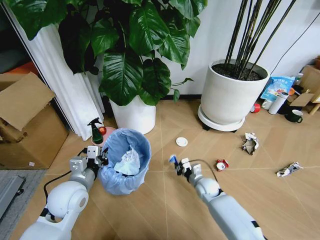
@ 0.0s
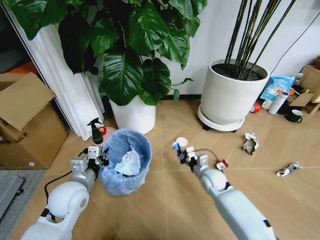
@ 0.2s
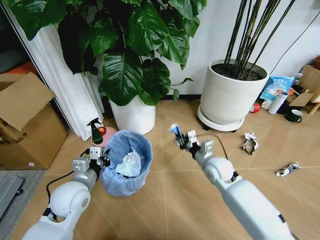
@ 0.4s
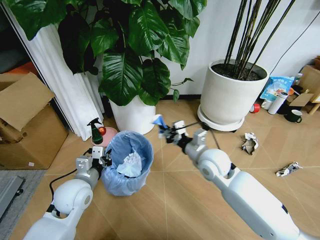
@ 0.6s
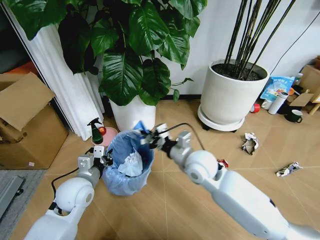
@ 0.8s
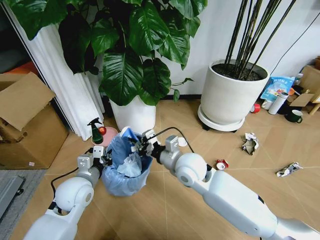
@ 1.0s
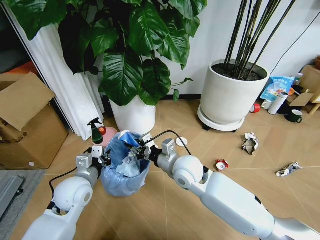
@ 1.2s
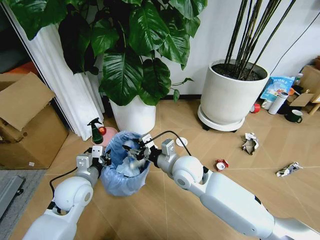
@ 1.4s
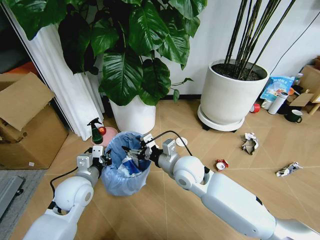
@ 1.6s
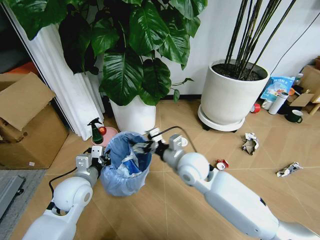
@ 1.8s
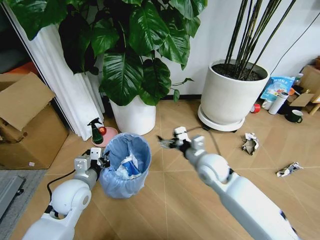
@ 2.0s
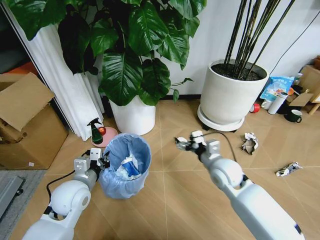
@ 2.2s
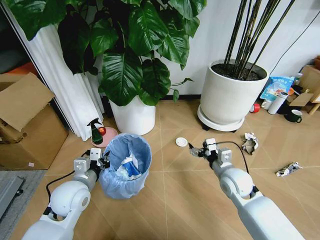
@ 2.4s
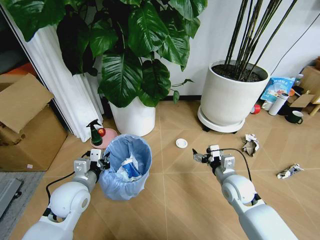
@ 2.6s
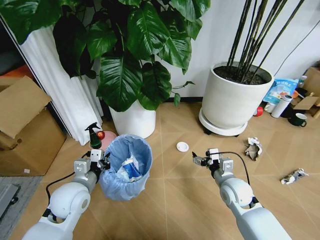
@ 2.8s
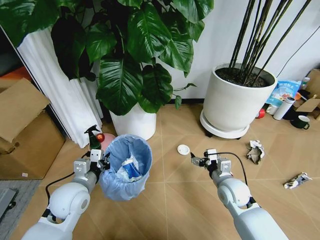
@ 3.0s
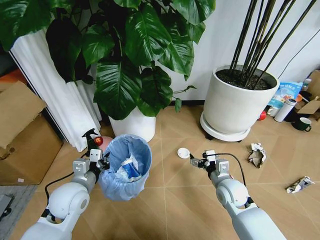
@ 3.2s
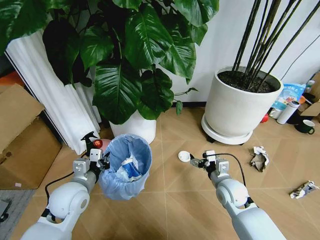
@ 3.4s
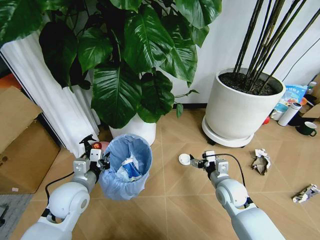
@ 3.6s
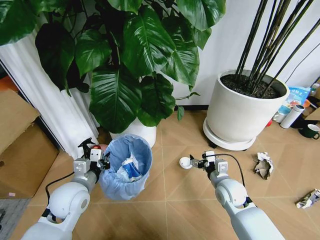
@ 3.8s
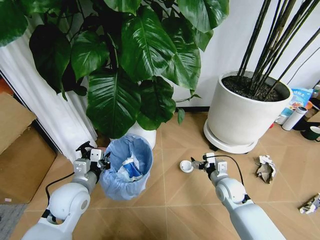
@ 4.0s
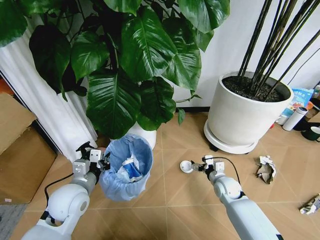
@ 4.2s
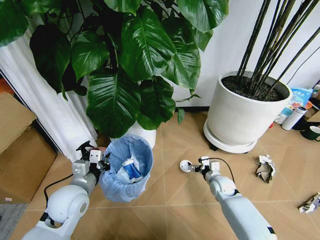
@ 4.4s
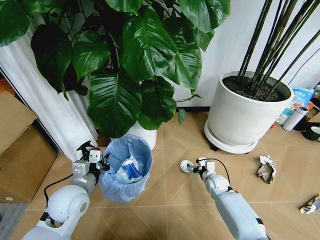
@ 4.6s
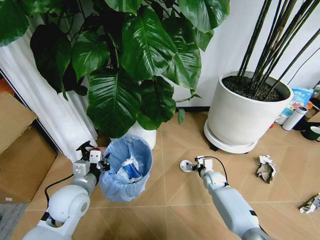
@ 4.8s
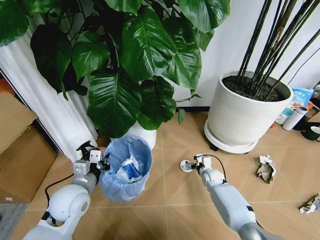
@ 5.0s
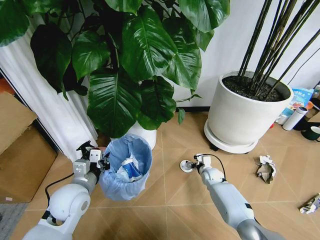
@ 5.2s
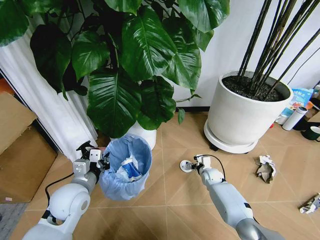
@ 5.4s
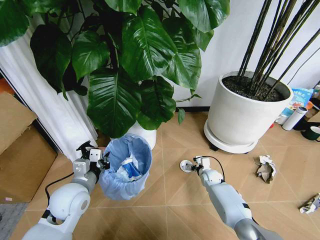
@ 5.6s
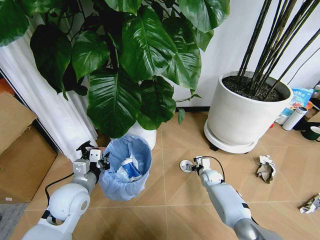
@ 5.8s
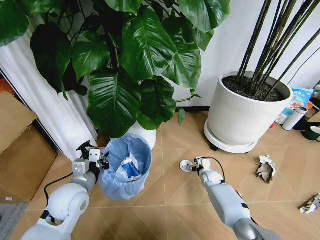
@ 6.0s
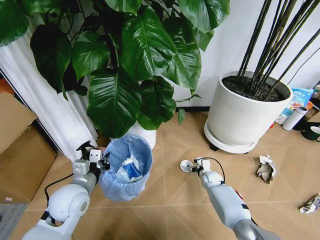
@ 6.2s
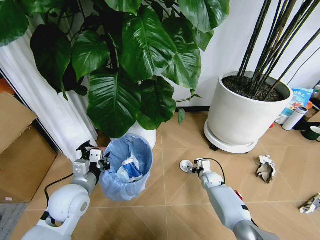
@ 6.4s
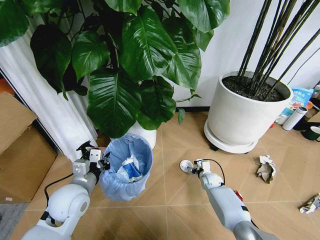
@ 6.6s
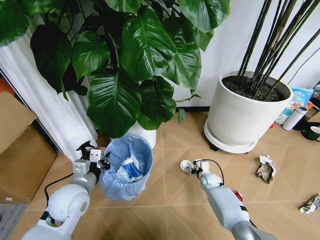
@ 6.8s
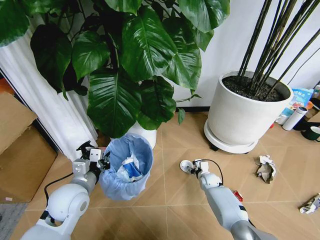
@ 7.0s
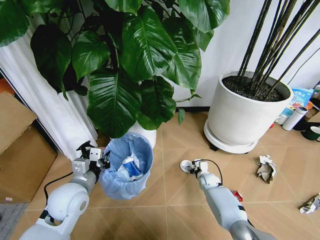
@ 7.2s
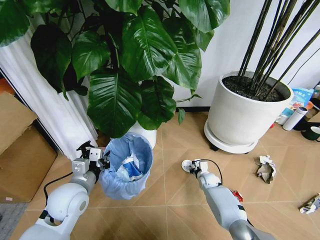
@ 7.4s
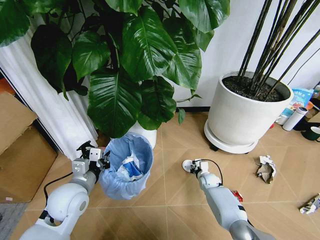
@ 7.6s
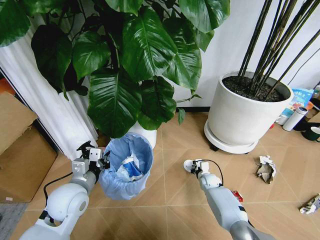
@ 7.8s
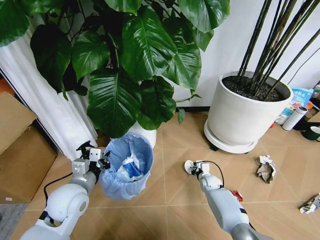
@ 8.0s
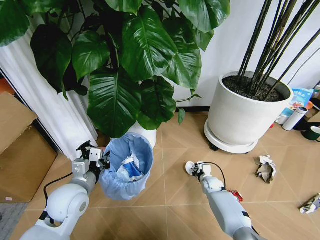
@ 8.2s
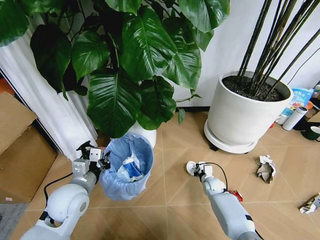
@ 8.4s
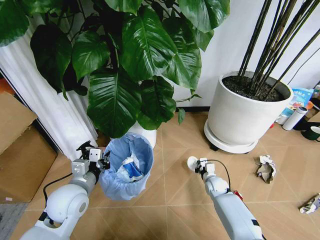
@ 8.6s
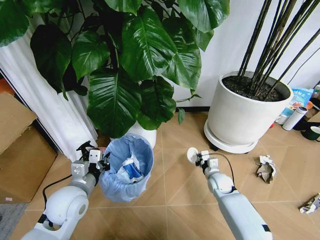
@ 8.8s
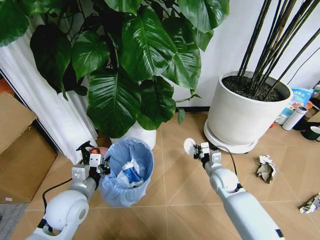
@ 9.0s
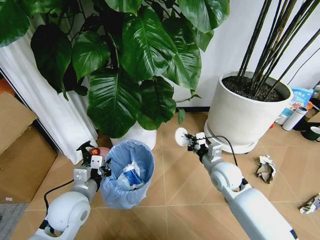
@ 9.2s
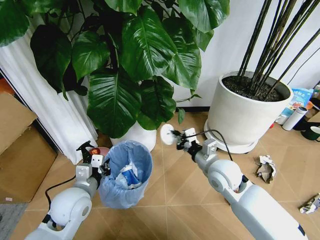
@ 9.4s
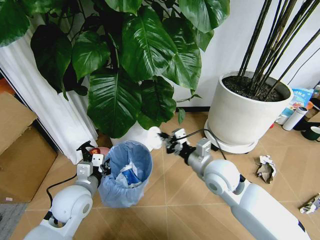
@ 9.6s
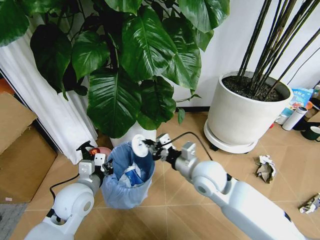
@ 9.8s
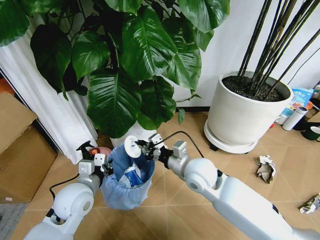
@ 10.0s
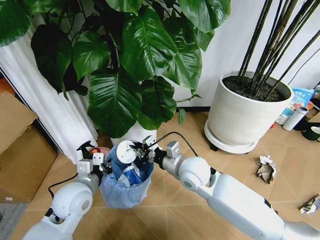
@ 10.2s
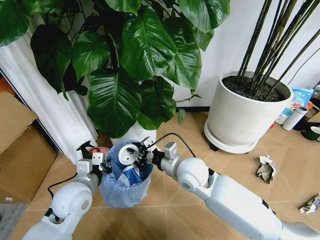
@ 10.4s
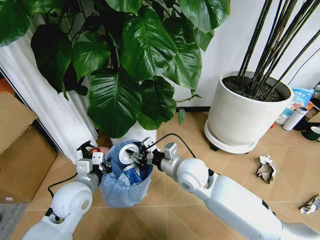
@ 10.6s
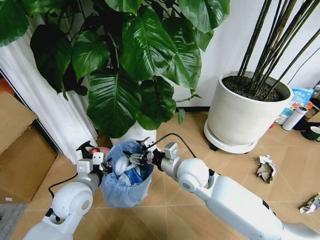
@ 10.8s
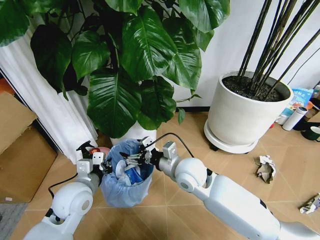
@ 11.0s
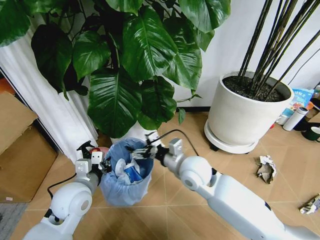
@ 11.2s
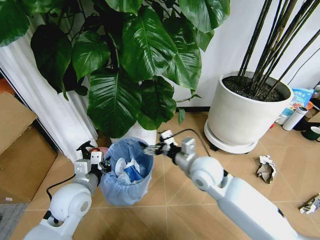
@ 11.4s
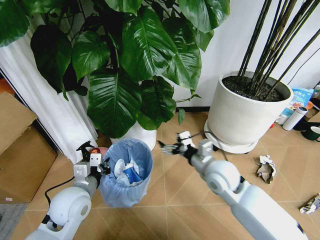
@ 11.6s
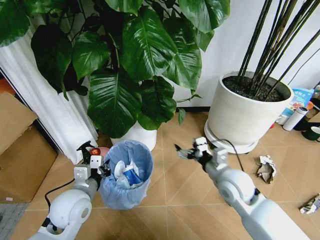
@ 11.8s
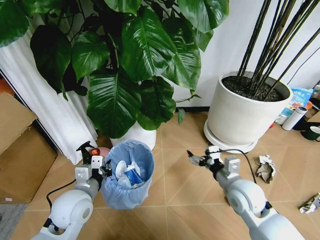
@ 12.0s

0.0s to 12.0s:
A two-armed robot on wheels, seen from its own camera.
Task of the whole recording: Pick up the trash bin and place the garbage on the floor into it.
0.0s to 1.6s: The right gripper travels upward and to the left by roughly 25 cm, and opens its fingers.
1.6s to 3.0s: The right gripper goes approximately 20 cm to the right and downward.
3.0s to 4.4s: The right gripper heads downward and forward, covering about 15 cm.
4.4s to 6.0s: The right gripper shifts about 10 cm downward and forward.
6.0s to 7.6s: The right gripper closes its fingers.
7.6s to 9.0s: The right gripper is displaced upward by some 15 cm.
9.0s to 10.4s: The right gripper travels to the left and upward by some 20 cm.
10.4s to 12.0s: The right gripper moves to the right, about 15 cm, and opens its fingers.

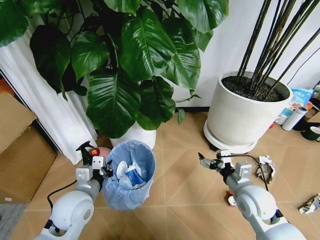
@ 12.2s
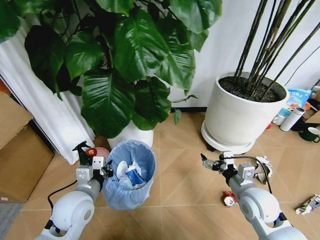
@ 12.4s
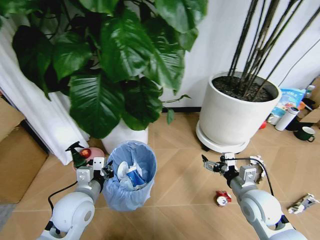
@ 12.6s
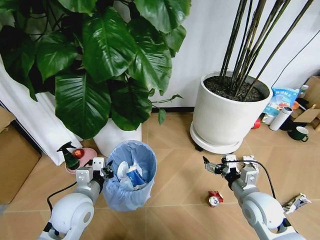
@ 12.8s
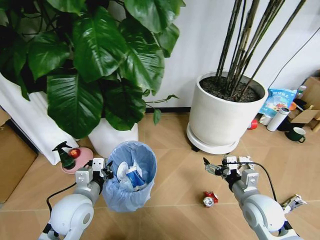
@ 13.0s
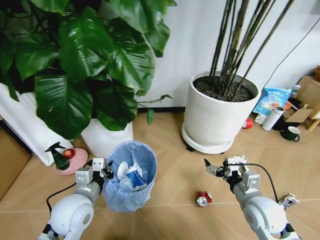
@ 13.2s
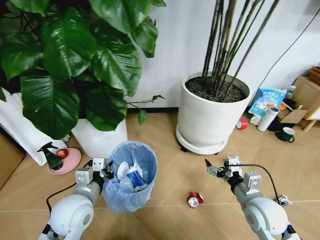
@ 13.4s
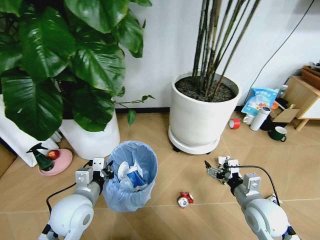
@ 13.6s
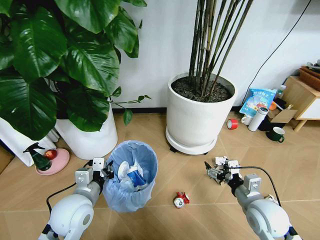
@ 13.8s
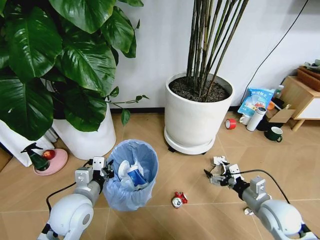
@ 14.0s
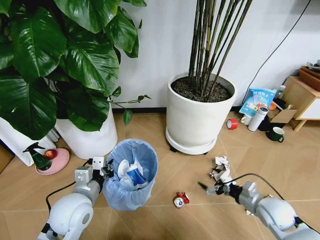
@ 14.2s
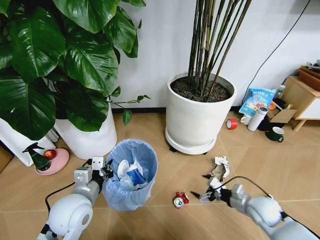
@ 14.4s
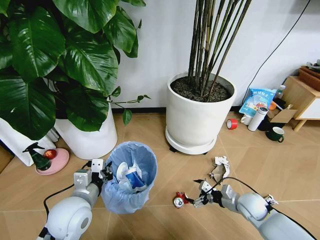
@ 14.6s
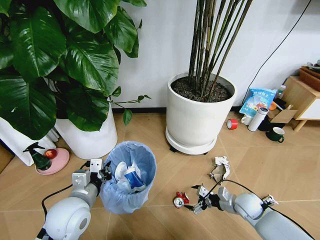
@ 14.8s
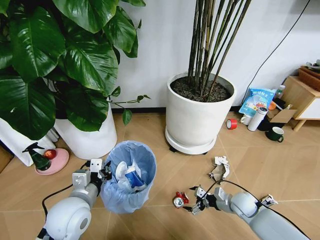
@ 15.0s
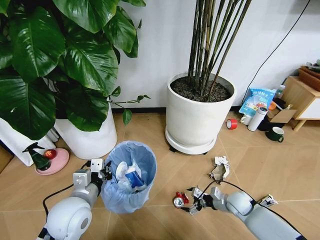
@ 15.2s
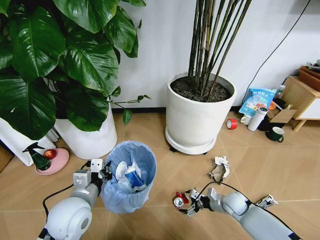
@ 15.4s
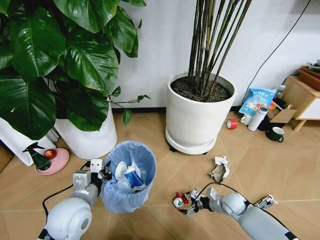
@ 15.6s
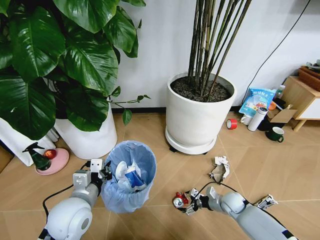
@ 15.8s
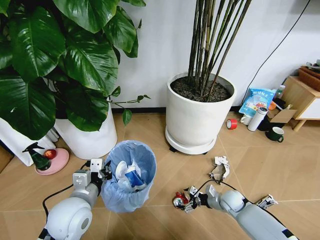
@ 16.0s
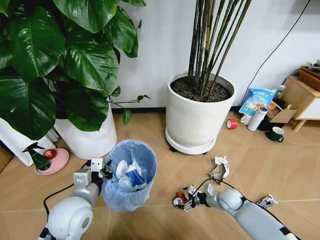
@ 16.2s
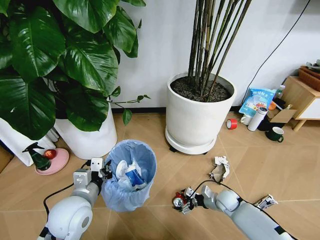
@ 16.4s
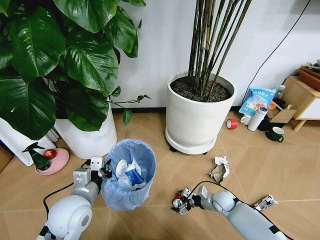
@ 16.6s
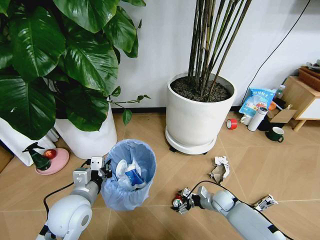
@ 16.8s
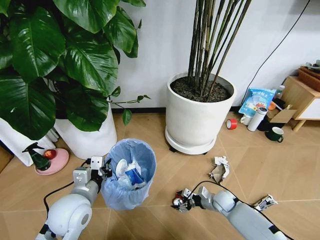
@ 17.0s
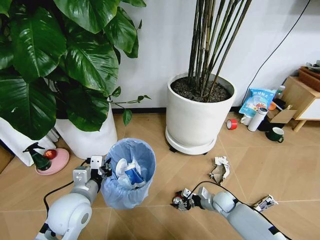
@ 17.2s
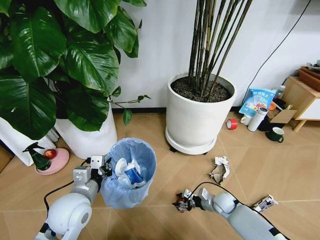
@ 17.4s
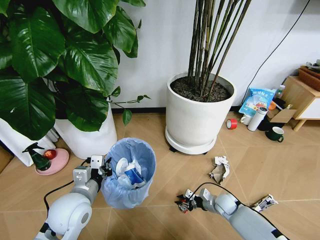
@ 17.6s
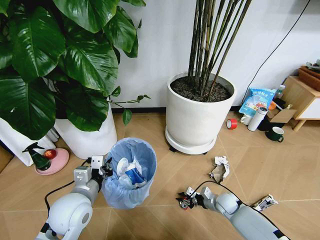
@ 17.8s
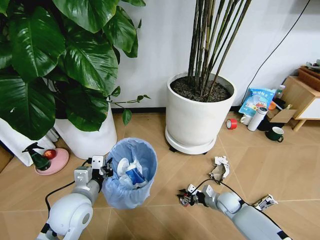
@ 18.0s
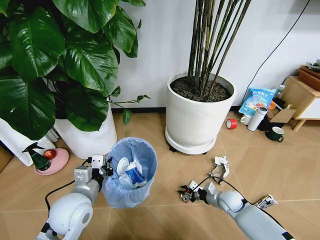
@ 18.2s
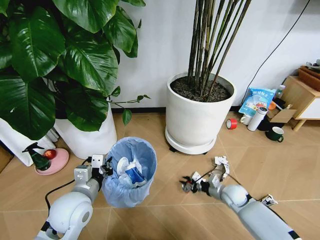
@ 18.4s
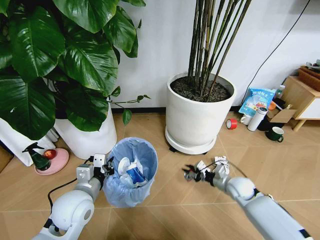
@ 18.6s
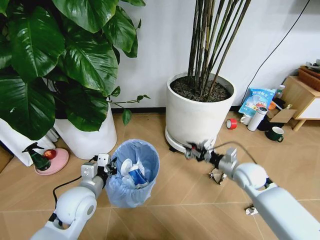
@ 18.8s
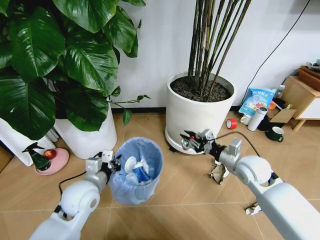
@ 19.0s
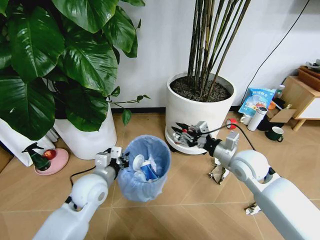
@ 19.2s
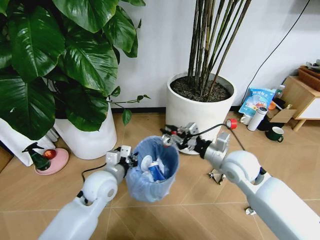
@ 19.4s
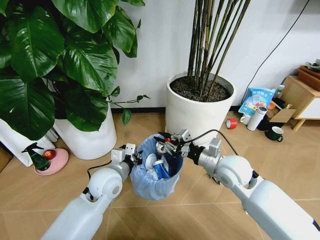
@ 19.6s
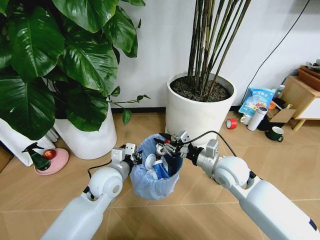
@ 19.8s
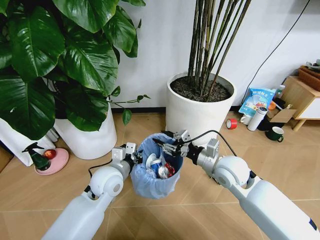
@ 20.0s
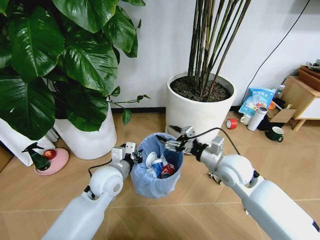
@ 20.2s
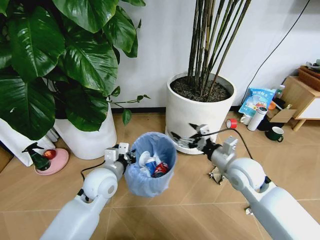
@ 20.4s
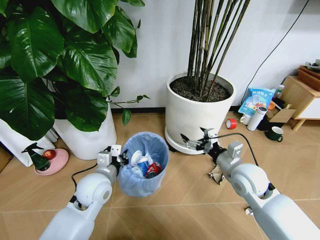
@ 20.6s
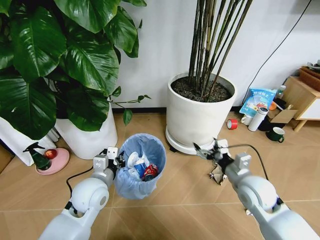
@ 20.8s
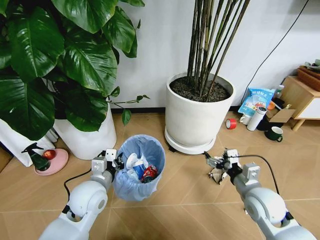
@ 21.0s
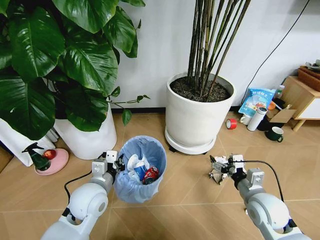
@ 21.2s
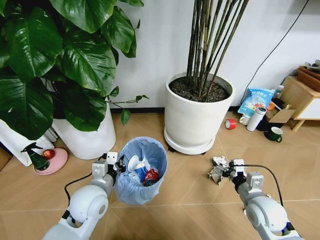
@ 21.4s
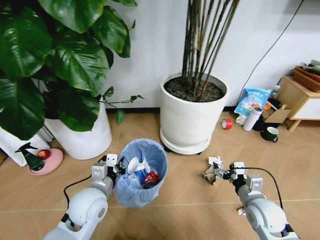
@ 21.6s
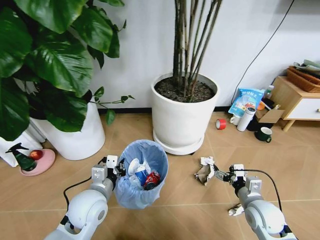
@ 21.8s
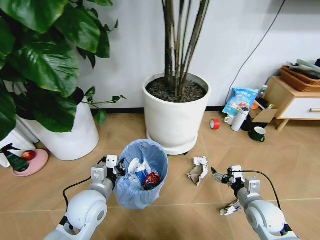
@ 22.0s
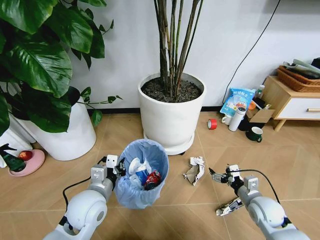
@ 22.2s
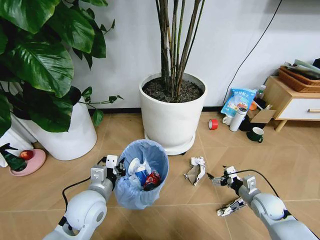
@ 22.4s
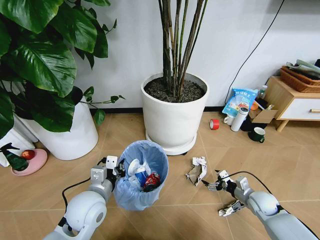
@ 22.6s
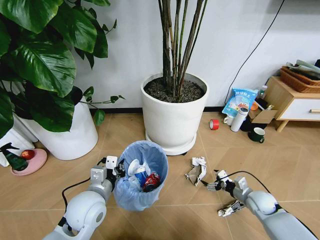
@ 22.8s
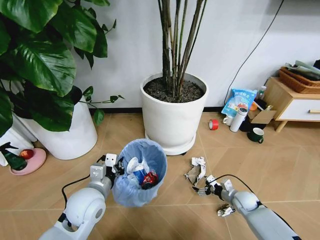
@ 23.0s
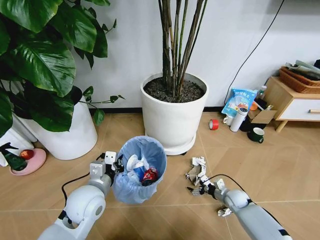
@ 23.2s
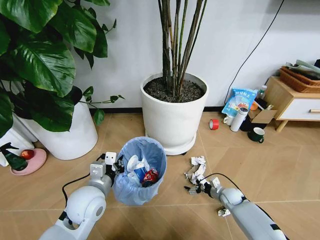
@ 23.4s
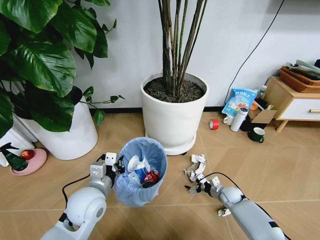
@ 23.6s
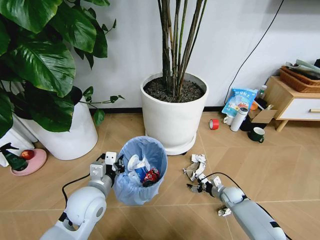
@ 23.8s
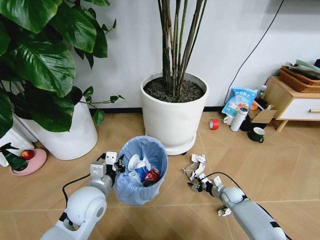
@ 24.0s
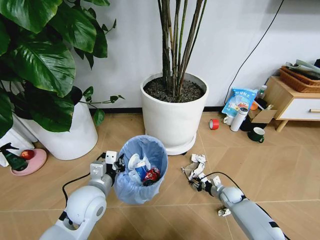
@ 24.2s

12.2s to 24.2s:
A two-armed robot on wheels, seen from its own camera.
Task of the whole recording: Pick up the trash bin and place the garbage on the floor into it.
12.2s to 13.8s: The right gripper changes place by about 5 cm.
13.8s to 15.2s: The right gripper is displaced downward and forward by roughly 20 cm.
15.2s to 16.6s: The right gripper changes place by approximately 5 cm.
16.6s to 18.2s: The right gripper closes its fingers.
18.2s to 19.8s: The left gripper goes roughly 10 cm forward and to the right. Meanwhile the right gripper shifts approximately 25 cm upward.
19.8s to 21.2s: The left gripper travels backward by some 5 cm. The right gripper shifts some 15 cm backward, to the right and downward, and opens its fingers.
21.2s to 22.6s: The right gripper is displaced downward, to the right and forward by about 15 cm.
22.6s to 24.2s: The right gripper moves downward, forward and to the left, about 15 cm, and closes up.
